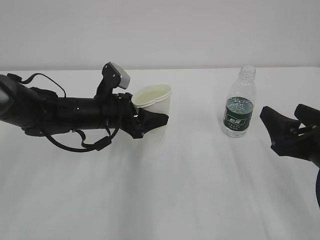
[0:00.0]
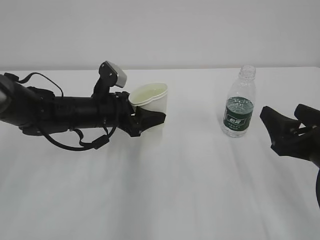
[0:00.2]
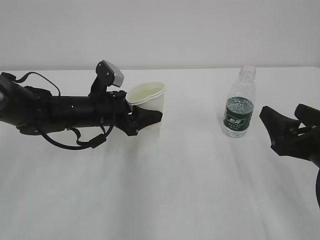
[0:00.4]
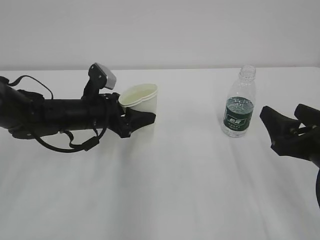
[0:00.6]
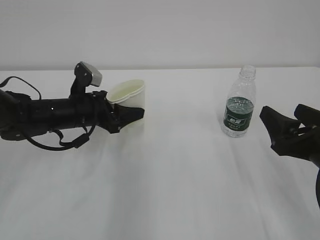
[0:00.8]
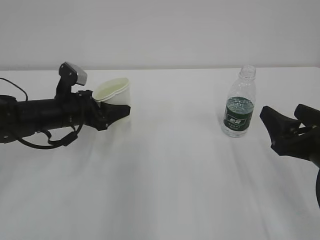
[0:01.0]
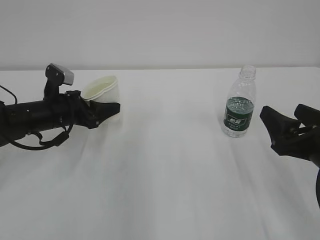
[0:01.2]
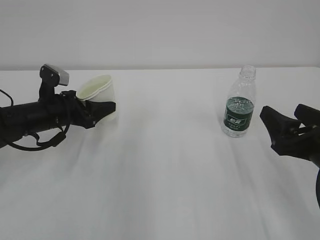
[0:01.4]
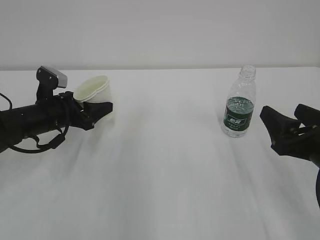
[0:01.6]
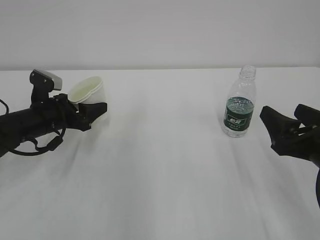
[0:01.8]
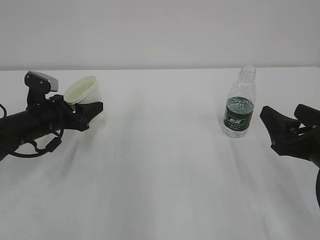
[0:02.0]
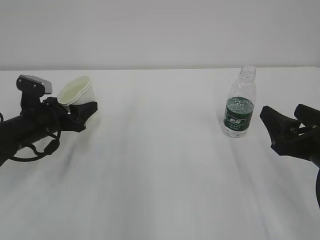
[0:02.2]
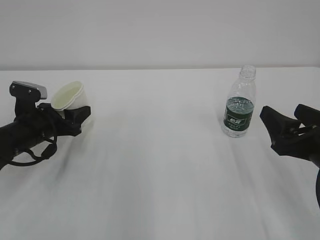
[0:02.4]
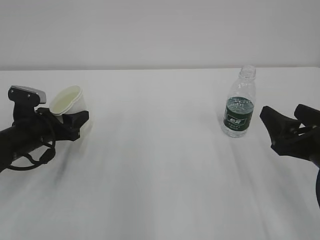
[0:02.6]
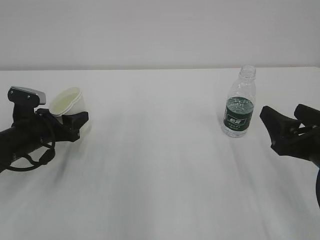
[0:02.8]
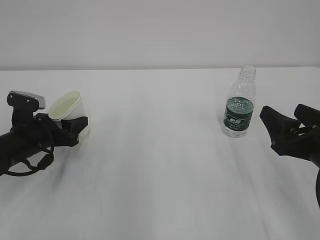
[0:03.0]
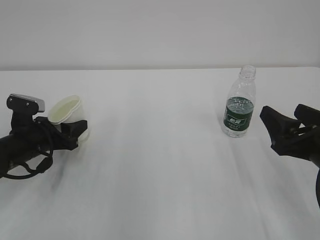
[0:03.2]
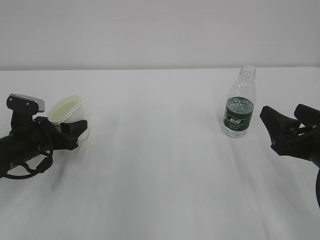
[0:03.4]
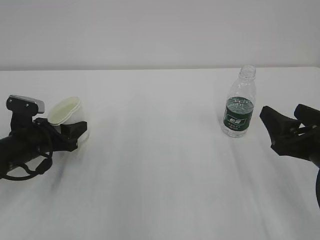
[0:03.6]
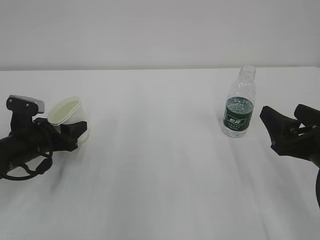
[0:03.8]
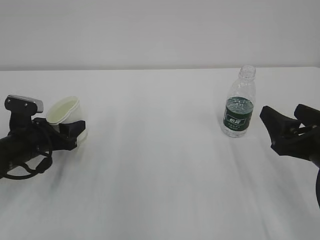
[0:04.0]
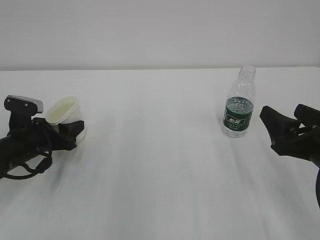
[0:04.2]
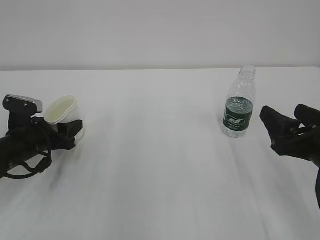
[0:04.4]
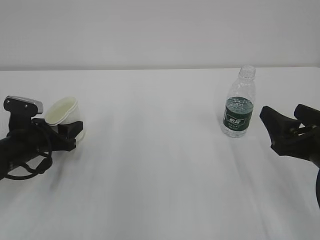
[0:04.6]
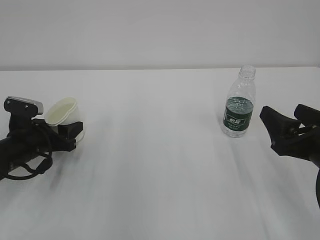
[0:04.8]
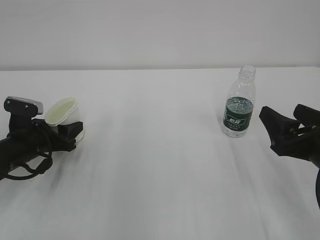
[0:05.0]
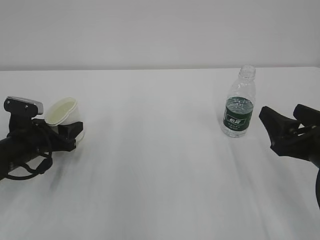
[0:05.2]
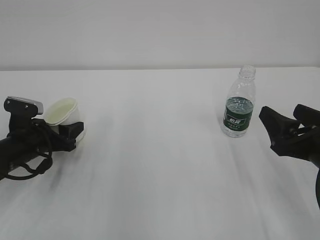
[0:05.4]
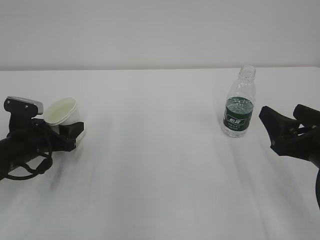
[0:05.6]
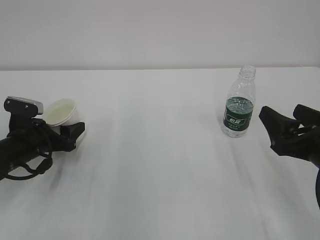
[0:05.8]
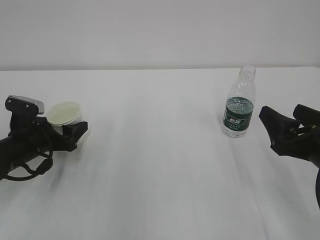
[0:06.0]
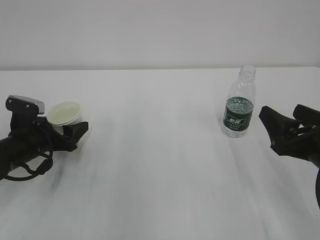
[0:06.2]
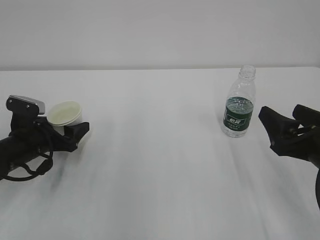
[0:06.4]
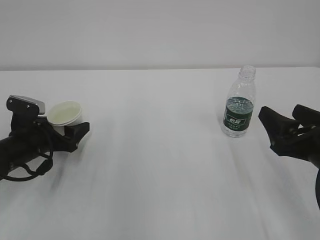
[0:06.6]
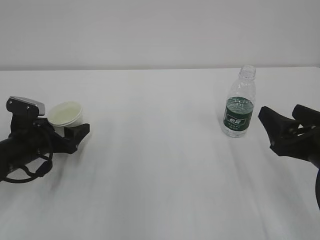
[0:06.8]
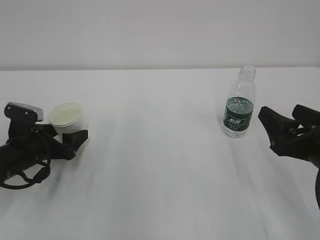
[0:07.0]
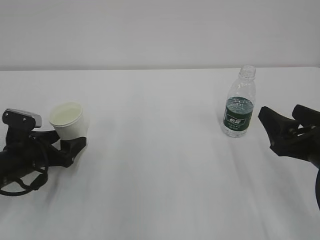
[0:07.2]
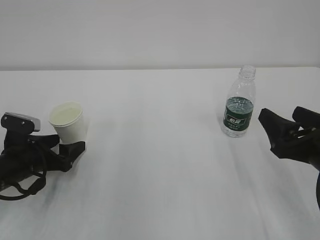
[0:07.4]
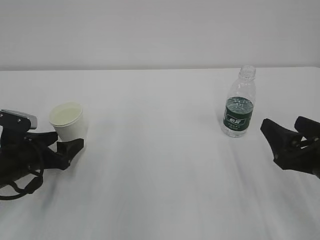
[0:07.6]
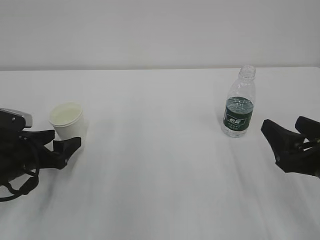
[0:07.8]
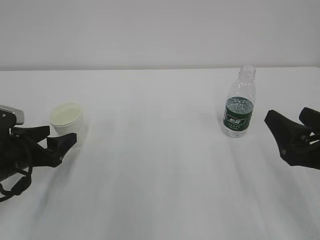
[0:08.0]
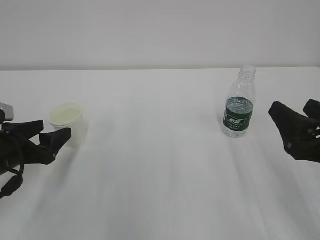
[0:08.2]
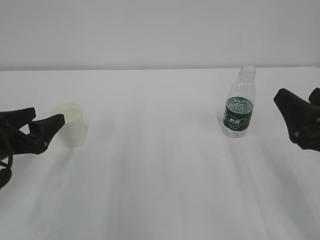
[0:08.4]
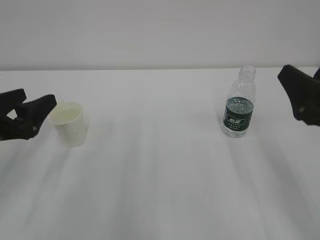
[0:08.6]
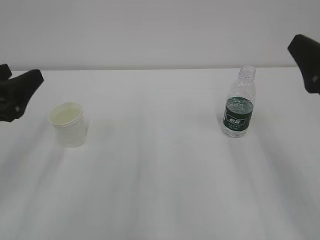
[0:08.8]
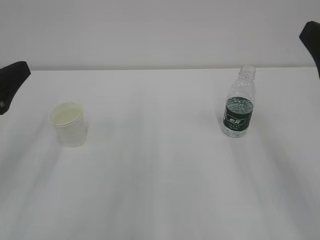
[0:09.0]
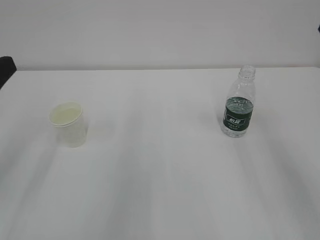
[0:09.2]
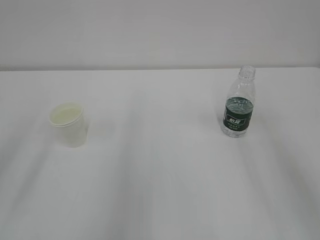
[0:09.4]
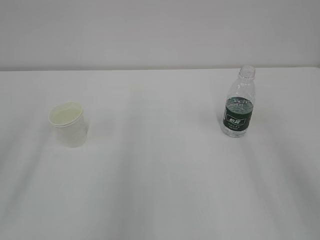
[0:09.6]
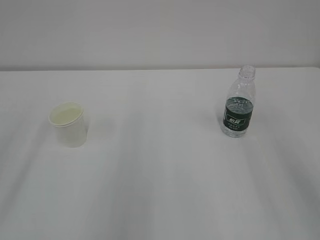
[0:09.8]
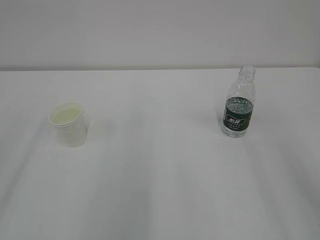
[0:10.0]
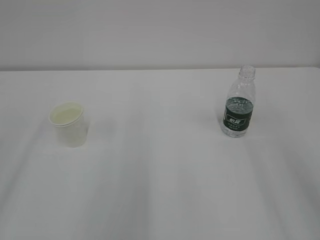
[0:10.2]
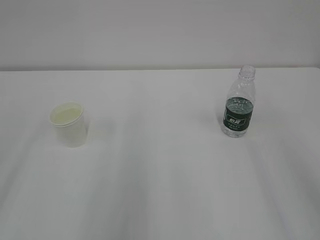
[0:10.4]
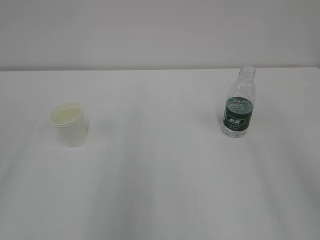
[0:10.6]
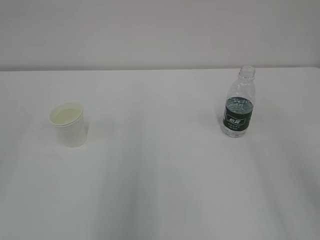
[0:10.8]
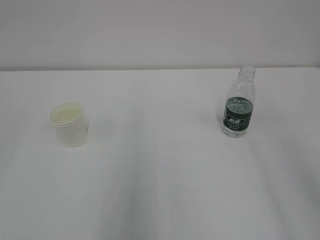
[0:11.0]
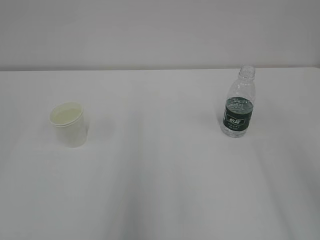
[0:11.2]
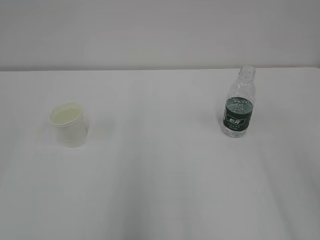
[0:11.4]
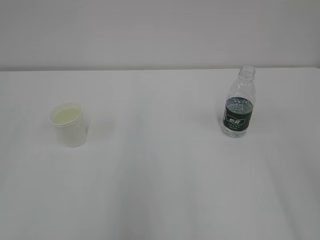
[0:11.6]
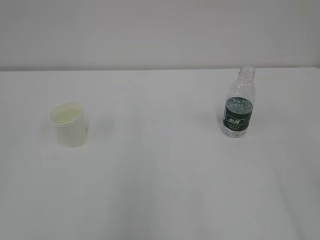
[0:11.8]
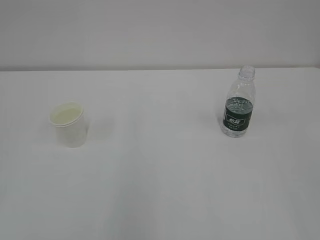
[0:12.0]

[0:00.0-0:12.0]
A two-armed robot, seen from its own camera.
0:00.0 to 0:01.6: The left gripper heads to the left, covering about 10 cm.
0:01.6 to 0:03.0: The left gripper shifts by about 5 cm.
0:03.0 to 0:04.4: Both grippers stay put.
0:04.4 to 0:06.0: The left gripper opens.
0:06.0 to 0:07.6: The grippers stay close to where they were, moving slightly.
0:07.6 to 0:09.0: The left gripper is displaced upward and backward by roughly 20 cm; the right gripper heads upward, covering approximately 15 cm.
0:09.0 to 0:10.4: The grippers both shift backward and upward by approximately 10 cm.

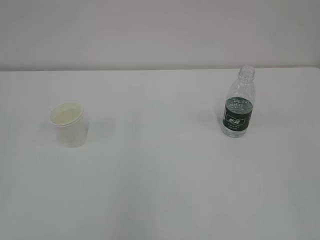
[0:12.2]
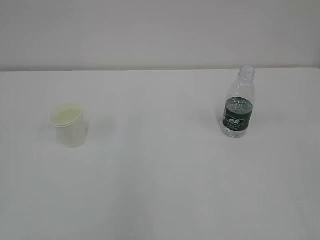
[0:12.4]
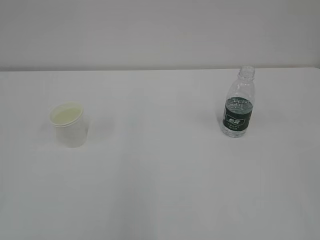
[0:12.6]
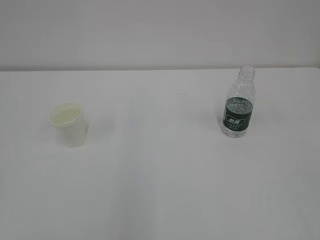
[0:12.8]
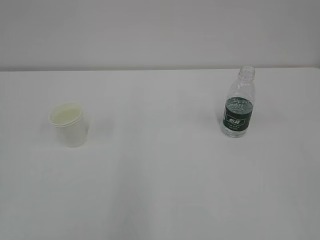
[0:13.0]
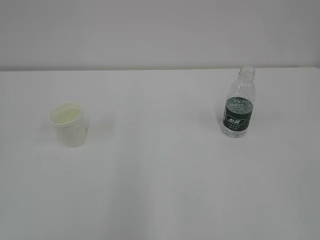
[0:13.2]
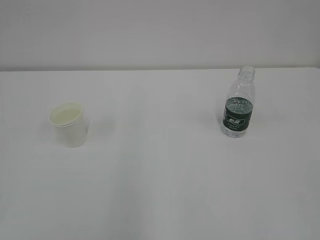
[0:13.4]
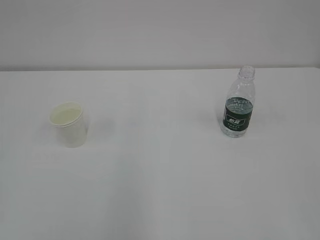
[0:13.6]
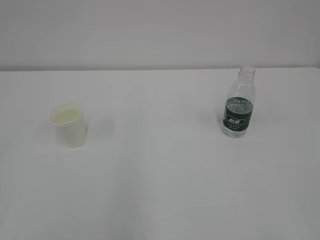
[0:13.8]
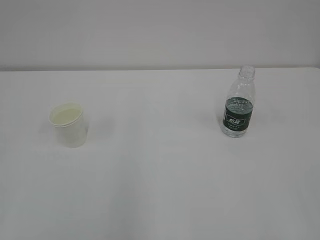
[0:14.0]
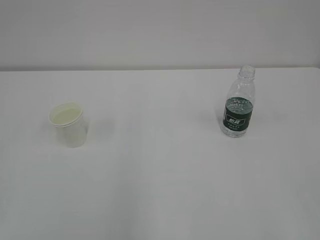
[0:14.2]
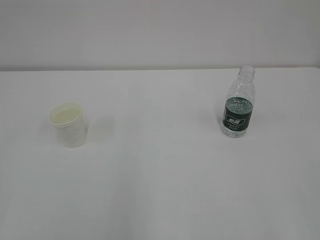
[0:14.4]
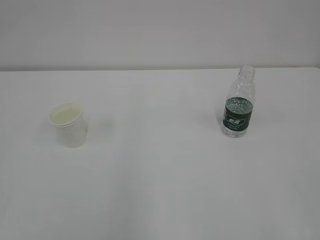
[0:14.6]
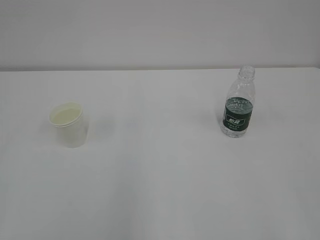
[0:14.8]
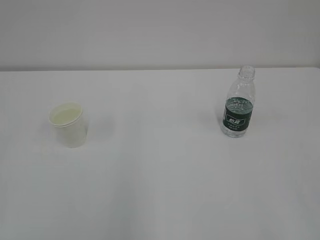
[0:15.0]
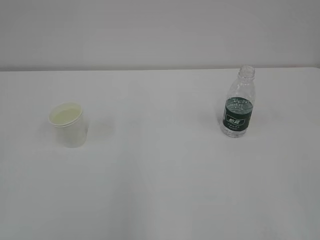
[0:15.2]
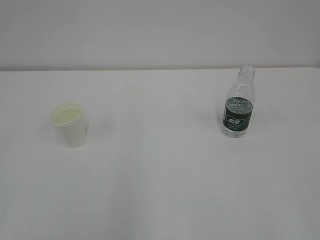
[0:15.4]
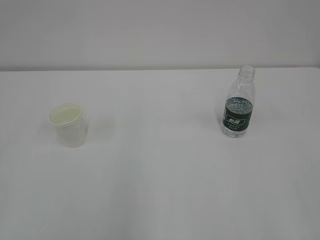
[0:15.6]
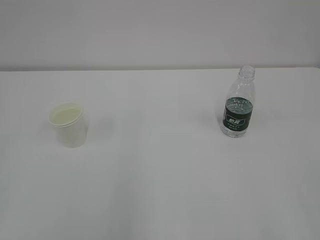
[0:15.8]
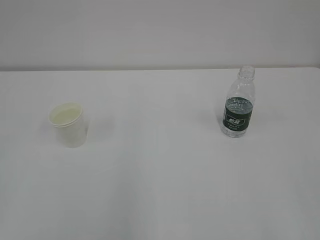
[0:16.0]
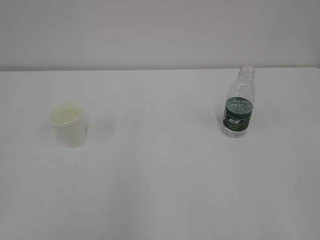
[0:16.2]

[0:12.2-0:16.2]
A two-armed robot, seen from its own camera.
0:14.8 to 0:16.2: Both grippers stay put.

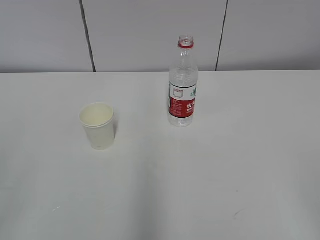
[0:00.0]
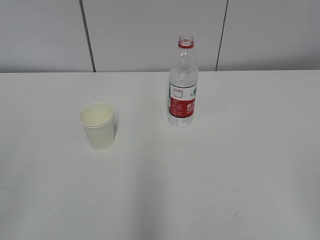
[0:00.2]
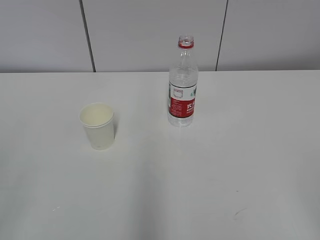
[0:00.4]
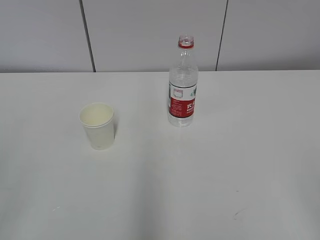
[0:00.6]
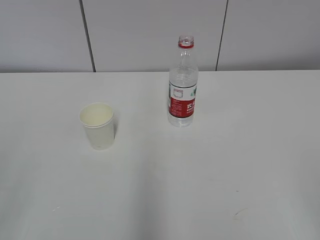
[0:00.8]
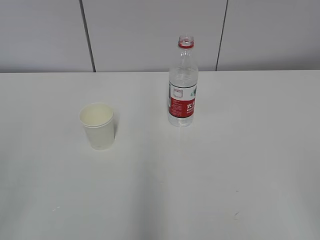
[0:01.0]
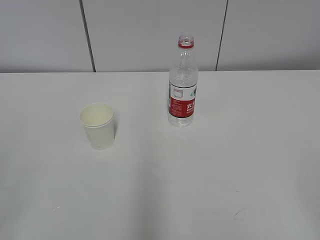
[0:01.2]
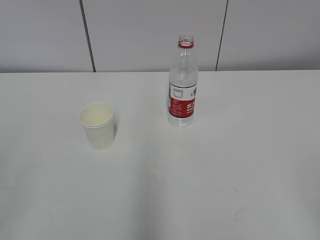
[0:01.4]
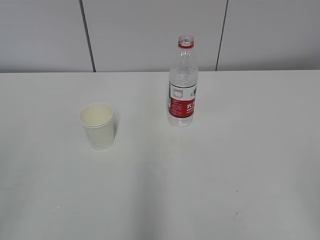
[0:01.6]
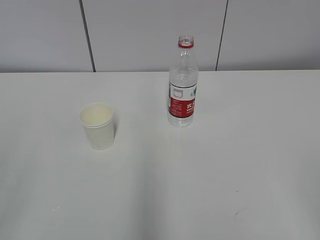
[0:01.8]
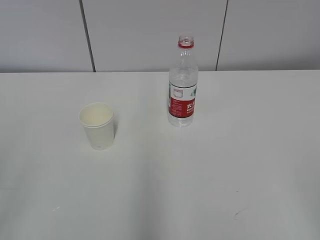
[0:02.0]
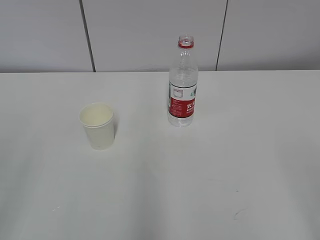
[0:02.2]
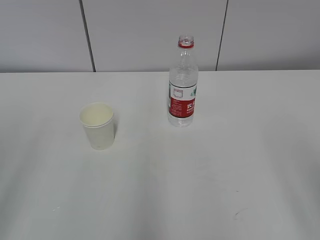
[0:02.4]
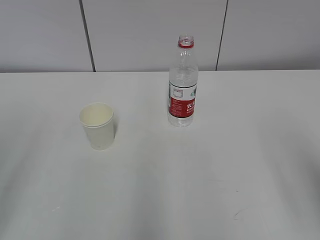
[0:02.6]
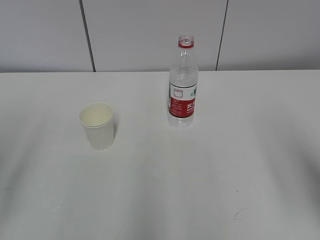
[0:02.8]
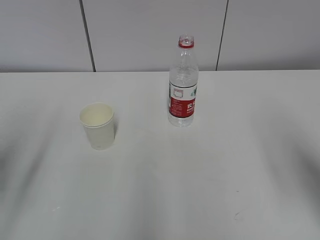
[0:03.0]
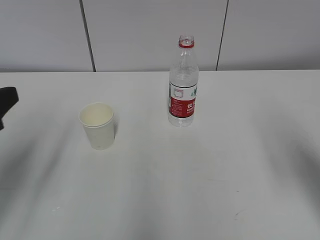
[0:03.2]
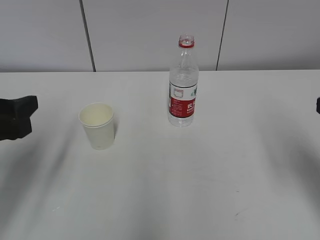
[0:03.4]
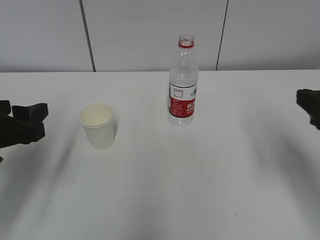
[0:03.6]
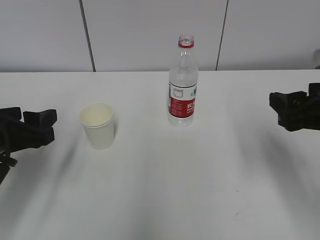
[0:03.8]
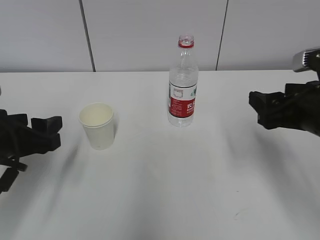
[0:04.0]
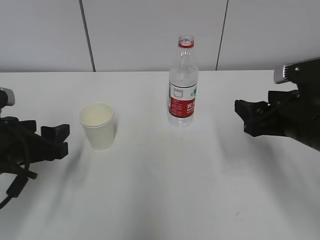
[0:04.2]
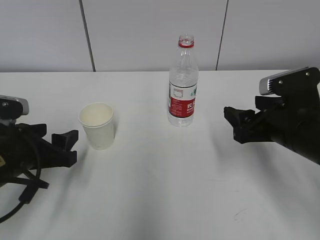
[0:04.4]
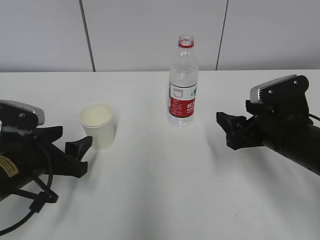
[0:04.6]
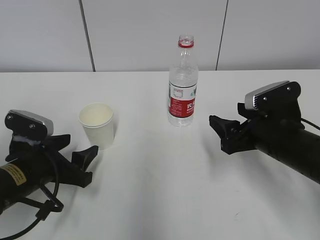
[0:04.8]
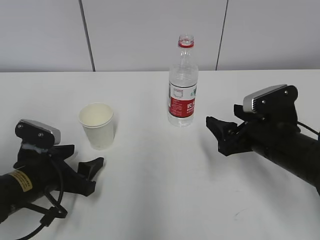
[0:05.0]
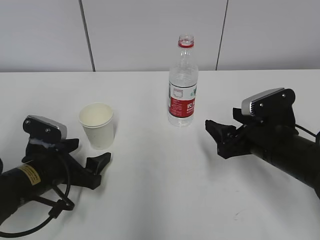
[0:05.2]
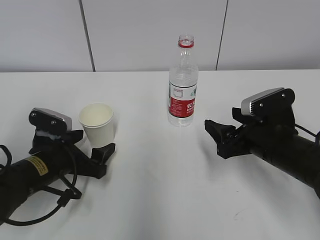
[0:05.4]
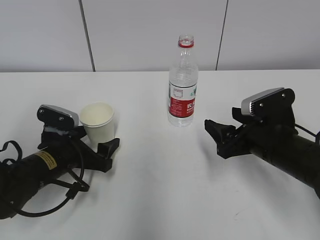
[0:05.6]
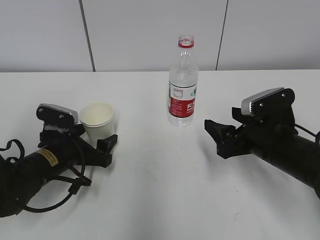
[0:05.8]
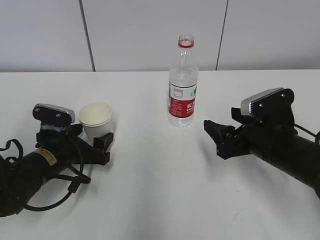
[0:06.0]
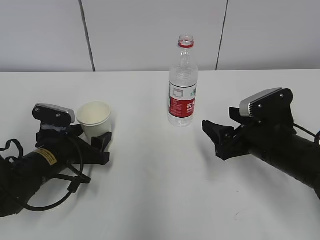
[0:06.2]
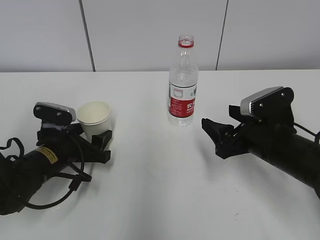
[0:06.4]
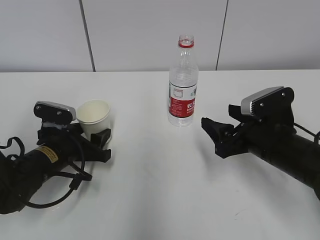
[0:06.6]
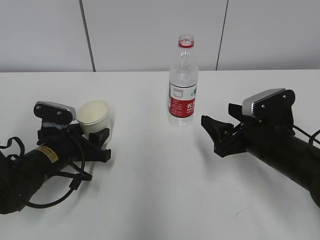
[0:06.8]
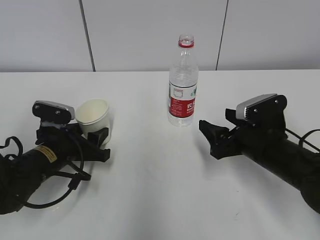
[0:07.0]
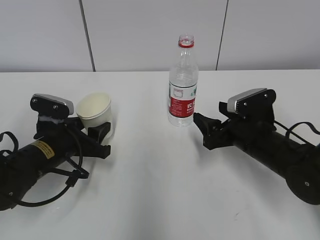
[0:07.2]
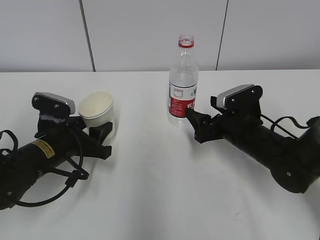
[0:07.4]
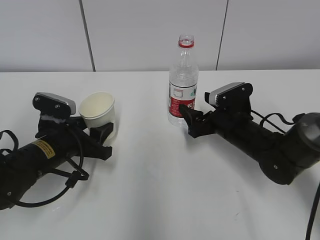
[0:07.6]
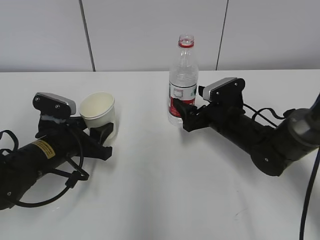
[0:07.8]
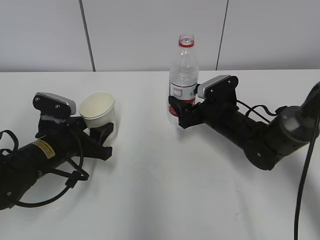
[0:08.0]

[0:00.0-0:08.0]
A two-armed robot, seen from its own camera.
Step, 0:00.0 to 0:05.6: Grab the paper cup with the left hand.
Step, 0:05.8 to 0:07.2: Grab the water bottle with the right hand.
0:01.6 to 0:03.2: Both grippers travel together forward, about 20 cm.
0:03.2 to 0:04.8: The right gripper heads downward, forward and to the left, covering approximately 20 cm; the left gripper is displaced downward and forward by roughly 15 cm.
0:04.8 to 0:06.4: The left gripper is displaced forward by roughly 5 cm, and opens and closes again.
0:06.4 to 0:08.0: The right gripper is displaced forward by about 10 cm, and opens; the left gripper closes its fingers.
